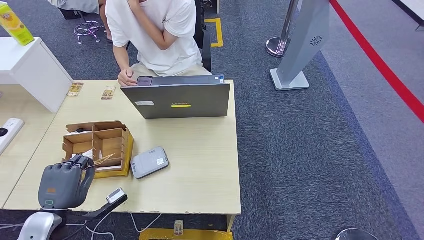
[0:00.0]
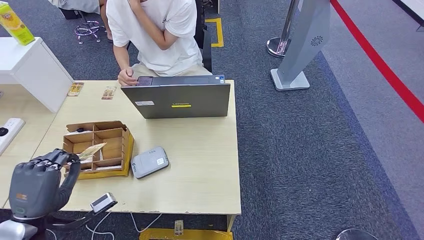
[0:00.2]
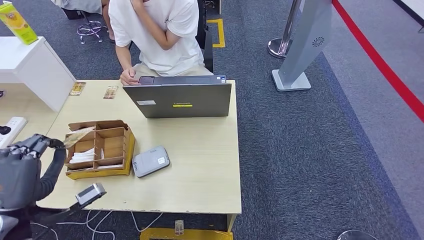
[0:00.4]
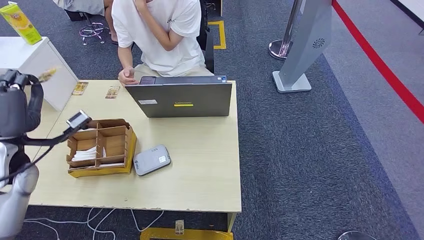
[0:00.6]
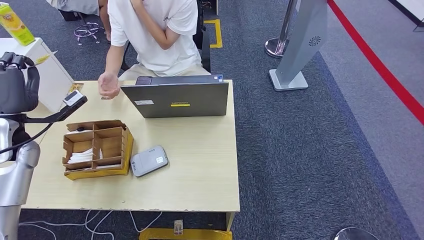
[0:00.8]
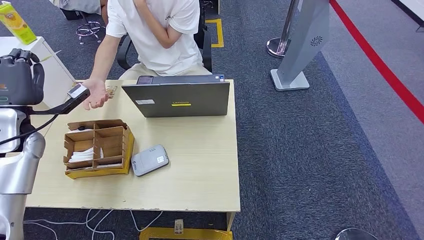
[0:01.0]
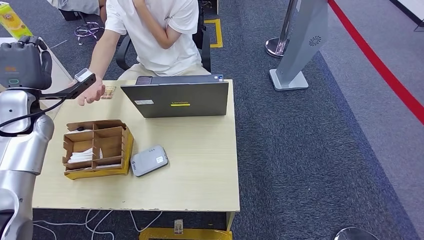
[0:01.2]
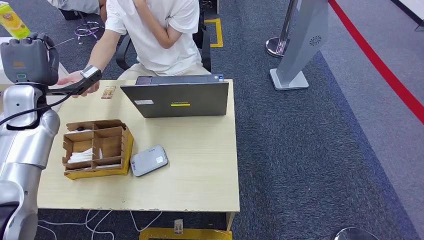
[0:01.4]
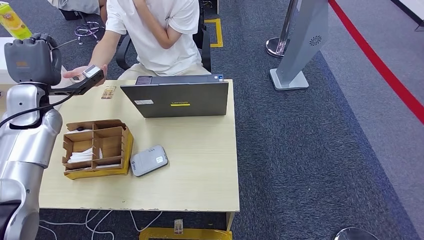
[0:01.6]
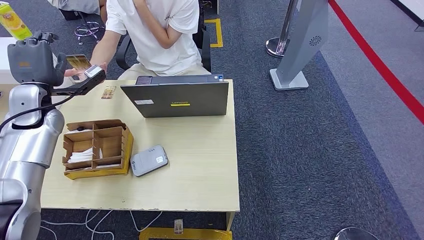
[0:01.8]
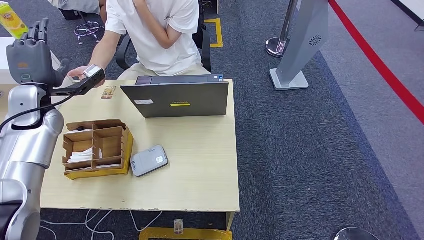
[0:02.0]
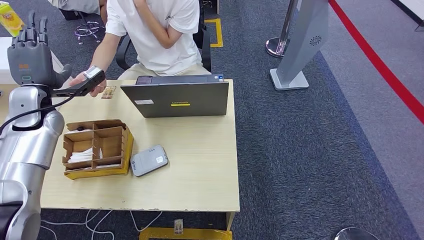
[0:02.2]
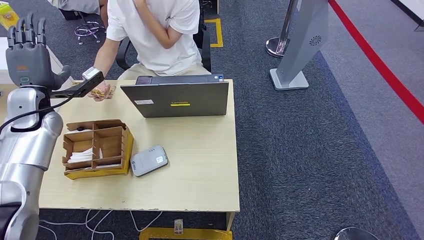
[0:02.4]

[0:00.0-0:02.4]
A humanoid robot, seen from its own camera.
Step, 0:00.6 to 0:02.4: Hand the room key to the person.
0:01.2 to 0:02.4: The hands stay close to where they were, moving slightly.
